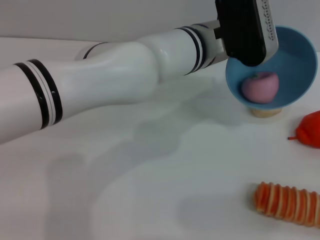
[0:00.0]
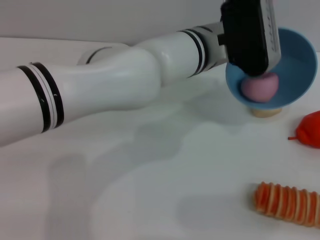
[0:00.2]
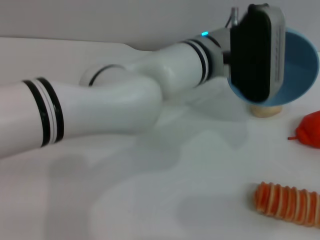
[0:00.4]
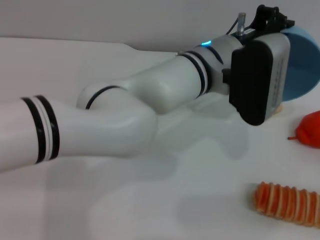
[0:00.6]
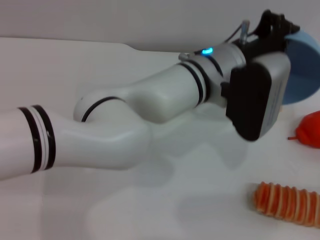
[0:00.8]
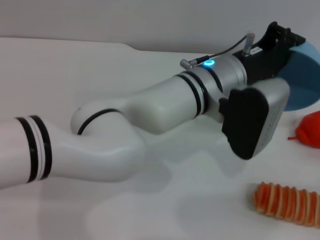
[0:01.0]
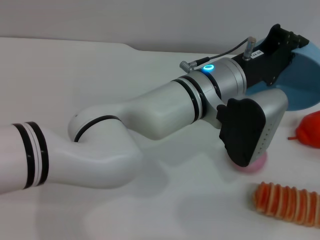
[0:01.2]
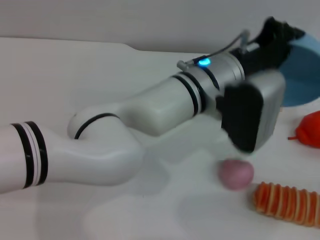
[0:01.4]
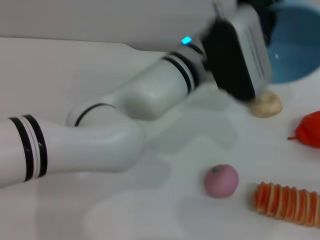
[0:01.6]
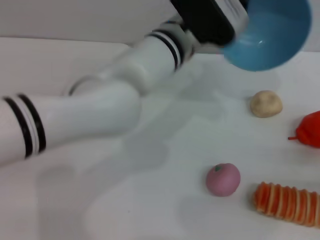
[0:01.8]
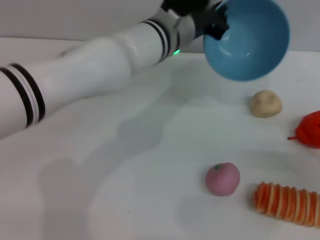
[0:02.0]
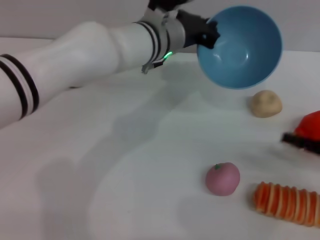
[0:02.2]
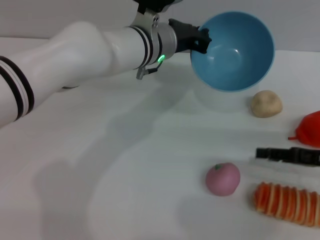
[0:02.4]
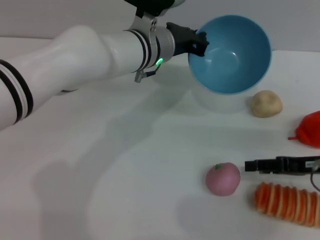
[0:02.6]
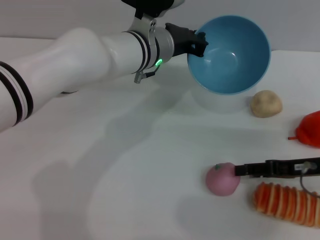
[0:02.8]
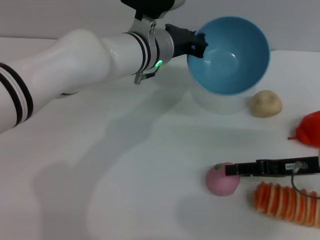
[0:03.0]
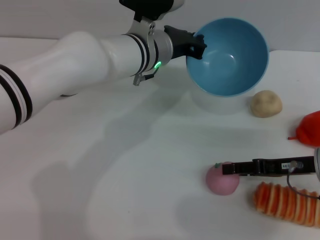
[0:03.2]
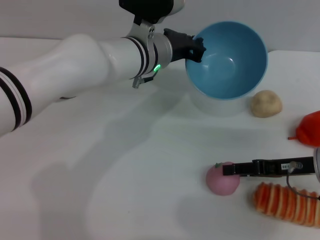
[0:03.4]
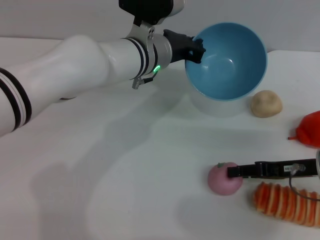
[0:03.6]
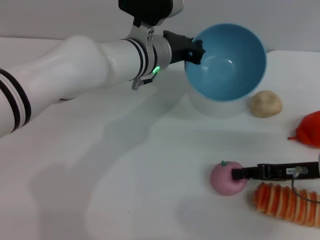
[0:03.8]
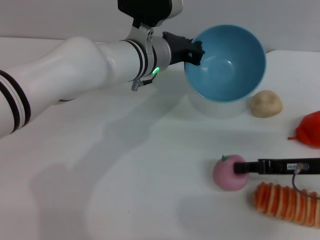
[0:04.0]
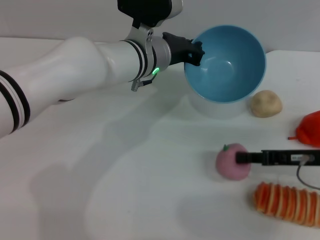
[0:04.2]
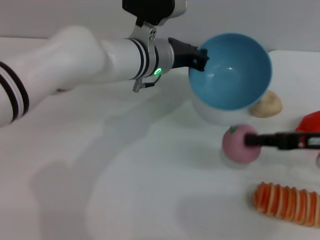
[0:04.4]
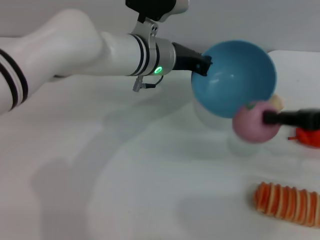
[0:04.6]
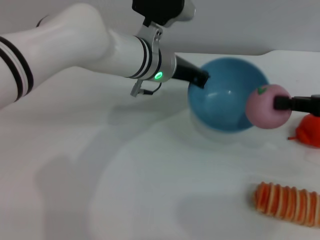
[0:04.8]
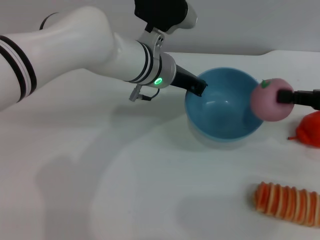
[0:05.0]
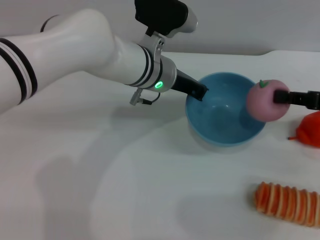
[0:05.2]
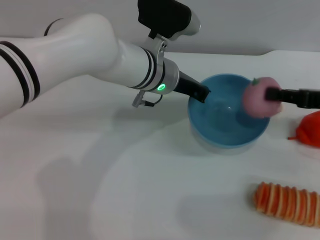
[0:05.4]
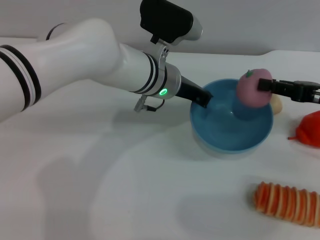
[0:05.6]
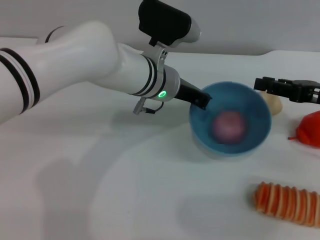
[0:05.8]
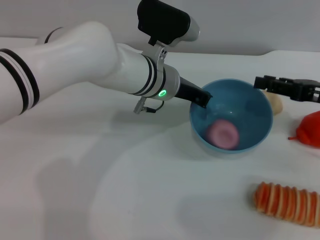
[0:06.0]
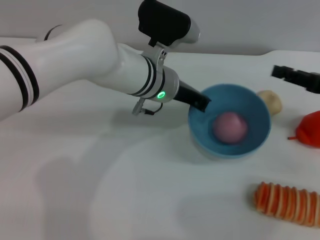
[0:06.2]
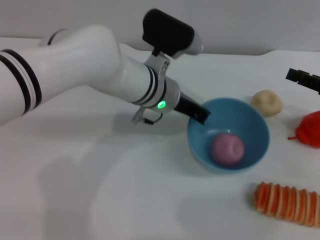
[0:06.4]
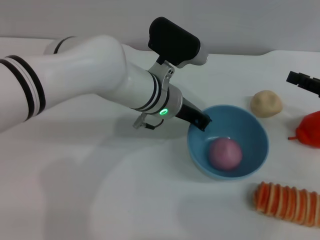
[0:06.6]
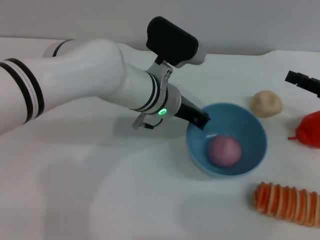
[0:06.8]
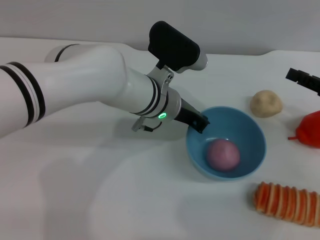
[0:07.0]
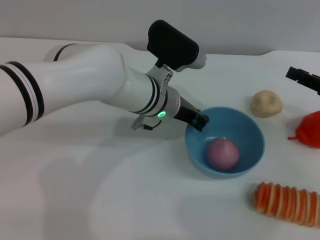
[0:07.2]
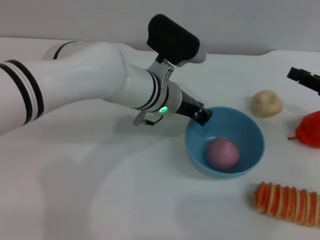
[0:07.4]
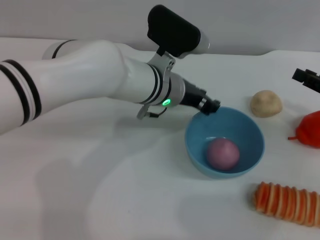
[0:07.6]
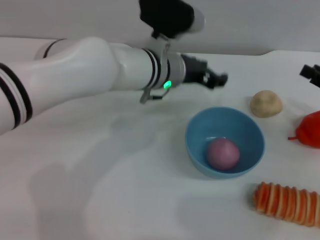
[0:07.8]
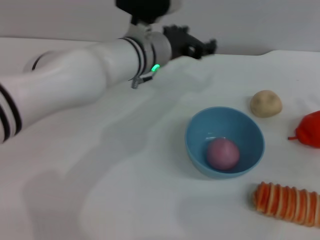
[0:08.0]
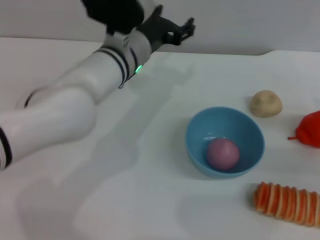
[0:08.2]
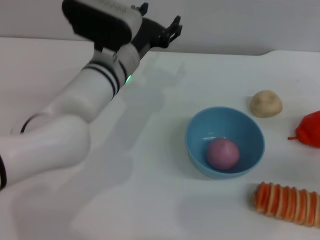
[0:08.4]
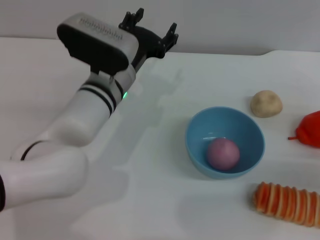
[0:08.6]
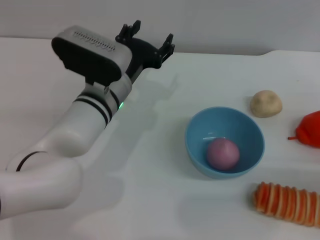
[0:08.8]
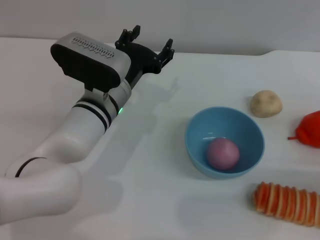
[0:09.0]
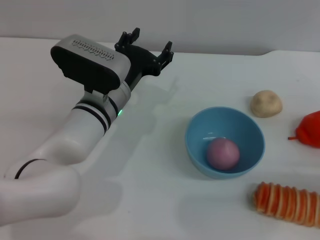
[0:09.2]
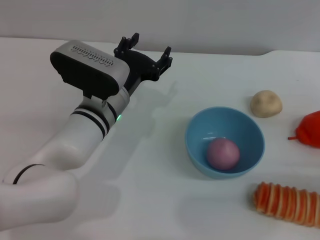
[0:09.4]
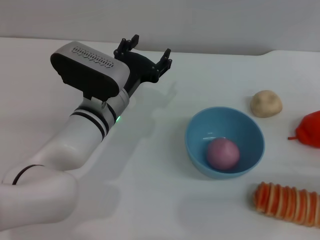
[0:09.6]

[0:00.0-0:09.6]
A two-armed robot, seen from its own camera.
Task of the whole recording: put the peach into the blue bowl and pour it out repeatedly.
Step, 0:01.4 to 0:04.2: Pick up the peach with the right gripper.
Step, 0:04.4 to 0:05.8: Place the peach into the bowl.
Step, 0:06.0 to 0:07.6: Place the bowl on the table.
0:00.0 to 0:01.6: The right gripper opens.
0:01.6 to 0:03.2: The right gripper is displaced to the left and forward by some 15 cm; the left gripper is displaced to the left and forward by some 10 cm.
0:03.2 to 0:04.8: The right gripper moves upward and to the right, approximately 10 cm, and closes its fingers.
0:04.8 to 0:06.4: The right gripper changes place by approximately 5 cm, and opens its fingers.
0:06.4 to 0:08.0: The left gripper opens.
0:08.0 to 0:09.6: The left gripper goes about 10 cm backward, downward and to the left. Meanwhile the right gripper moves downward and backward, approximately 10 cm.
